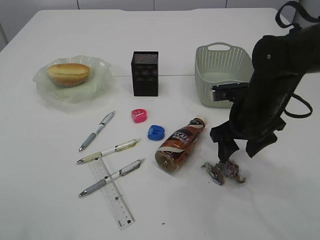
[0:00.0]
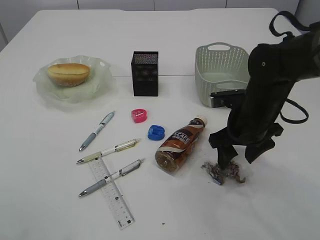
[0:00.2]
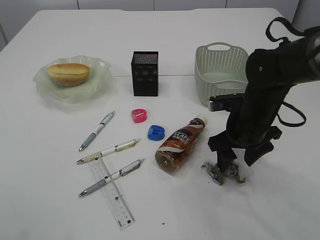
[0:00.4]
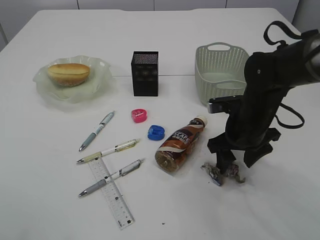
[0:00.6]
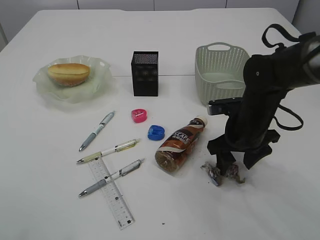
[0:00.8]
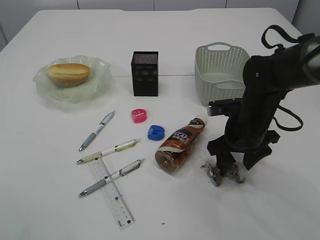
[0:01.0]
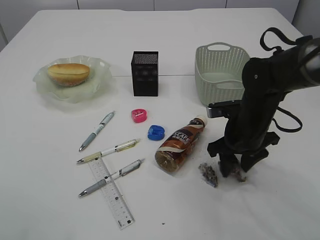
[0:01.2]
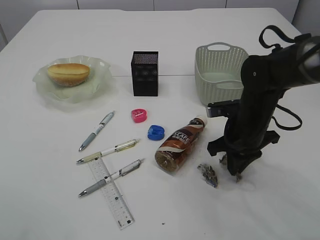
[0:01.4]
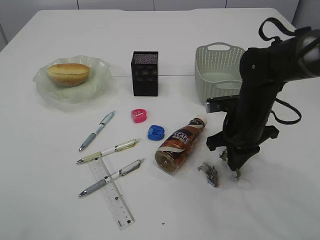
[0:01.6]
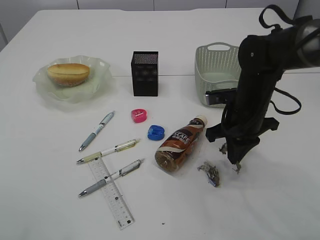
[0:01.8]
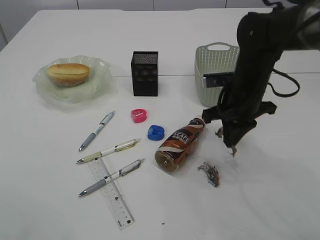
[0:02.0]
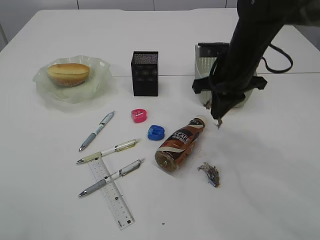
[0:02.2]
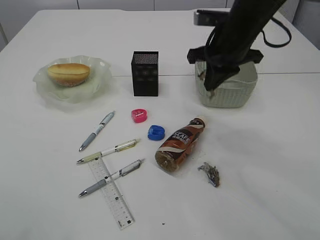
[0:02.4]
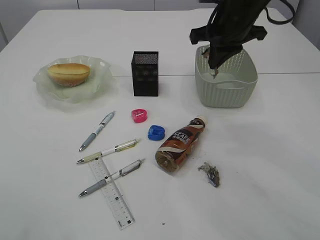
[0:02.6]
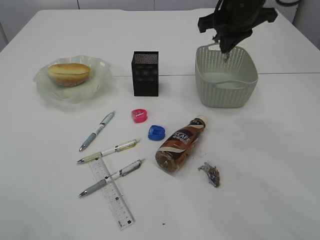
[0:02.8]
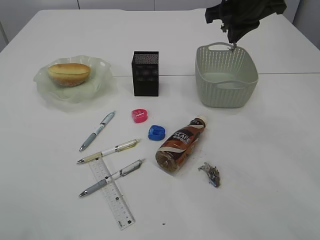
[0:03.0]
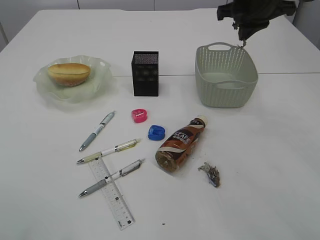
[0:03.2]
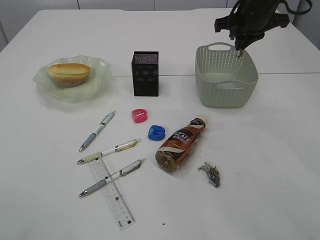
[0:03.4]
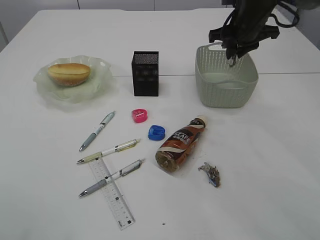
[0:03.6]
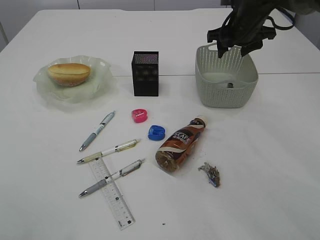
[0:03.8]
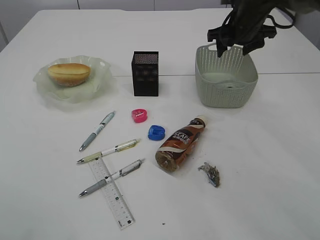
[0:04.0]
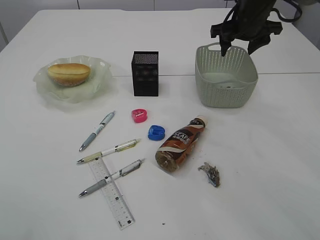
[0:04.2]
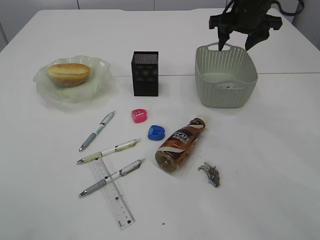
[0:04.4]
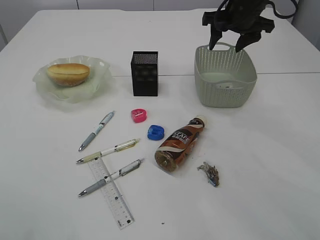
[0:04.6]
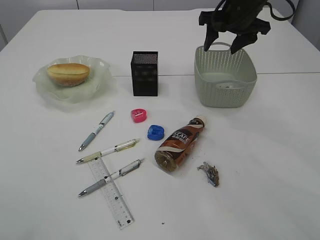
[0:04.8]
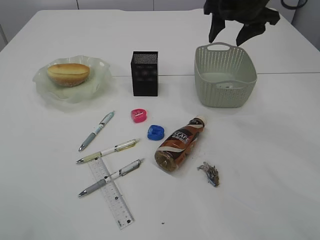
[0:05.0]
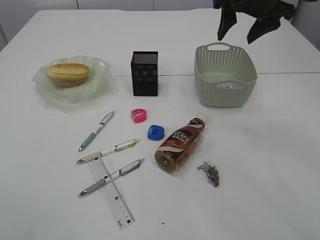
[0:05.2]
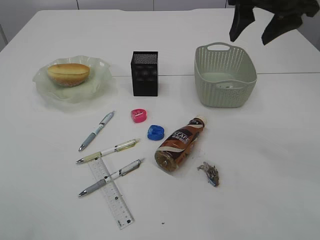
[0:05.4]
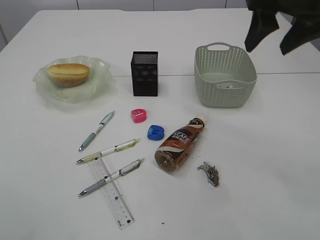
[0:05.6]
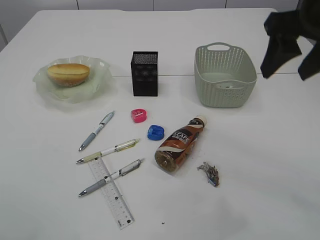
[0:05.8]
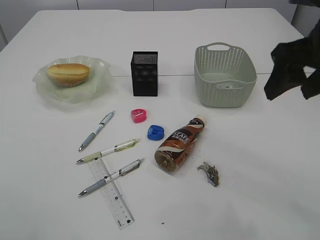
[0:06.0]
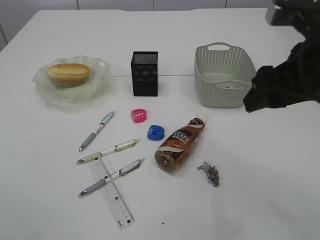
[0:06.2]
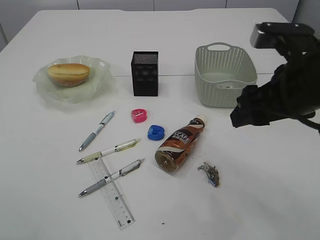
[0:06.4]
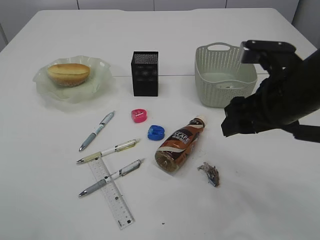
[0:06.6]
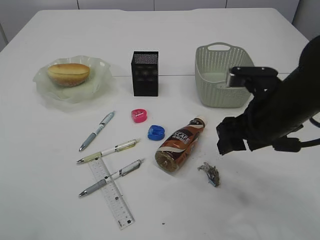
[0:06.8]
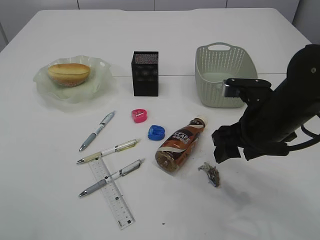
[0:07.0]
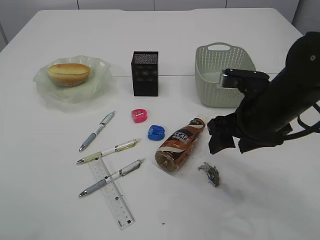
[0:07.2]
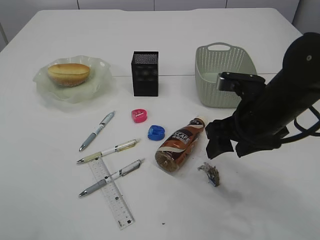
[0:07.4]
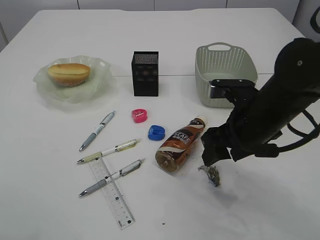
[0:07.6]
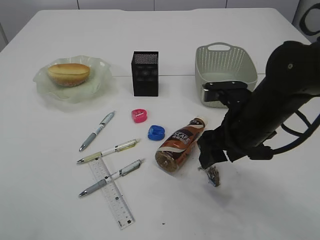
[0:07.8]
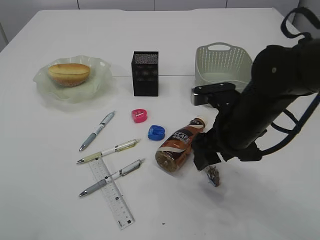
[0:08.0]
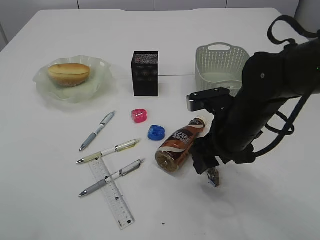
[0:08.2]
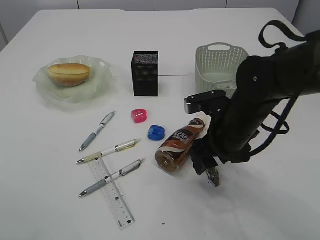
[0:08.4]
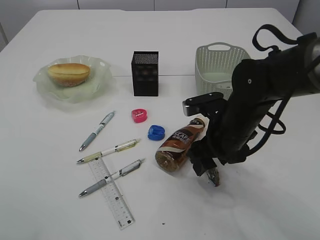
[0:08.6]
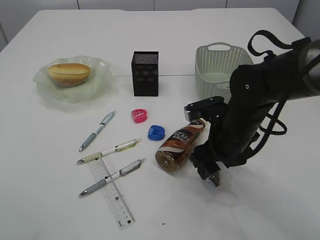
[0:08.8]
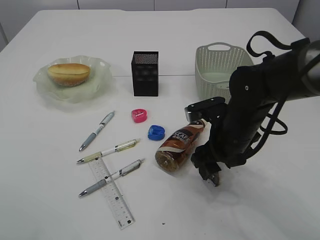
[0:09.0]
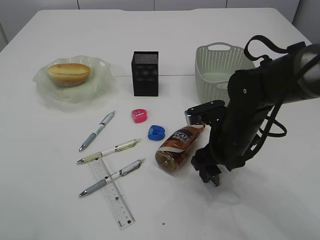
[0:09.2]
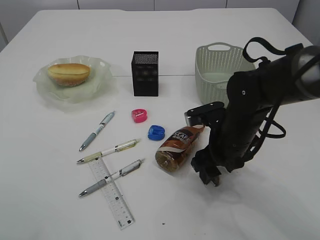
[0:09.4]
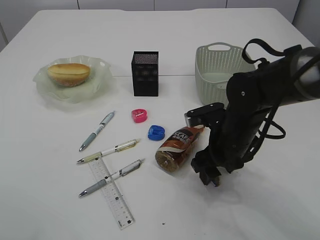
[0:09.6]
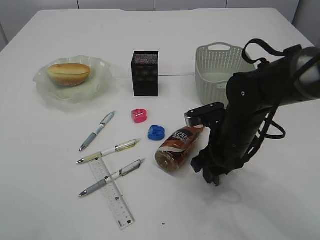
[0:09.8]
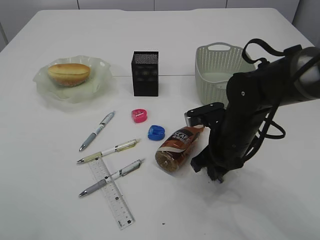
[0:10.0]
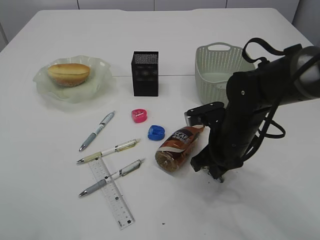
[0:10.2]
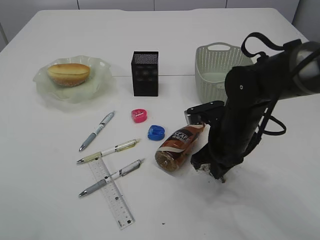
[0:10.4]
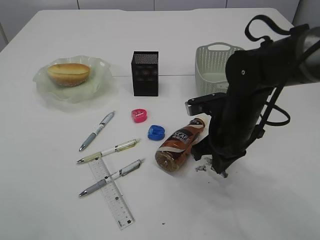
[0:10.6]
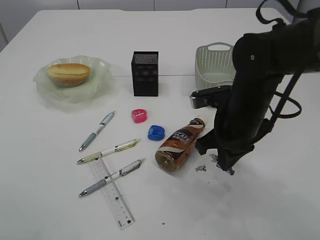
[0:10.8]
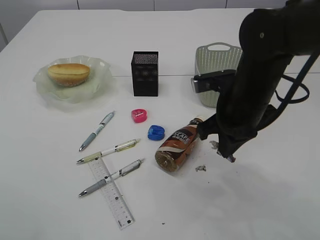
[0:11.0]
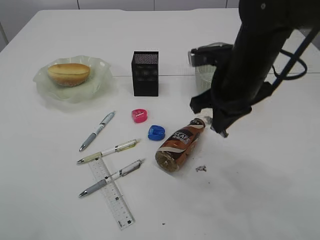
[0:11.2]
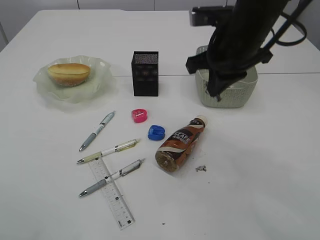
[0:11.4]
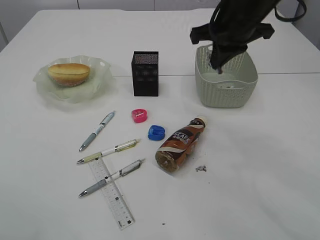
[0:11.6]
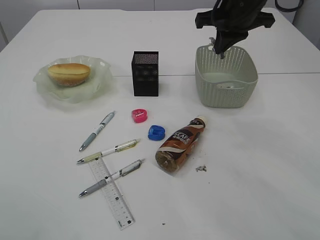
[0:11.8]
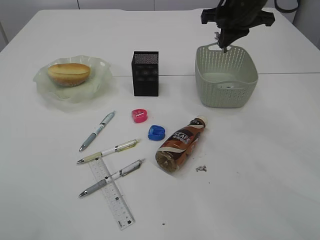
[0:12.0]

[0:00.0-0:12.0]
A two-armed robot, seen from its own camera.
Step, 0:00.0 to 0:02.2: Pick up the waste paper.
Step, 0:02.4 to 0:05.2: Place the waste paper in the basket.
Step, 0:05.4 to 0:10.8: Pick up the waste paper.
0:00.0 to 0:01.6: The right gripper closes.
0:01.6 to 0:03.0: The right gripper travels upward and forward by roughly 20 cm.
0:03.0 to 0:04.4: The right gripper opens up.
0:04.4 to 0:06.0: The right gripper travels backward by approximately 25 cm.
0:06.0 to 0:07.6: The right gripper goes some 15 cm downward and to the left.
0:07.6 to 0:09.0: The right gripper travels downward by roughly 5 cm.
0:09.0 to 0:10.4: The right gripper closes.
0:10.4 to 0:12.0: The right gripper goes approximately 25 cm upward and forward.

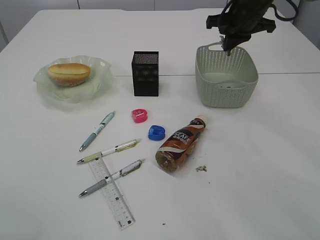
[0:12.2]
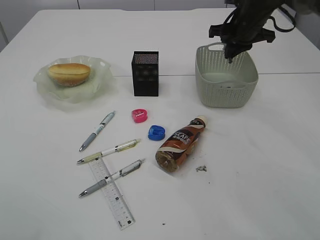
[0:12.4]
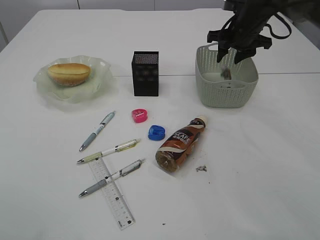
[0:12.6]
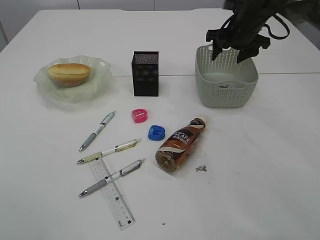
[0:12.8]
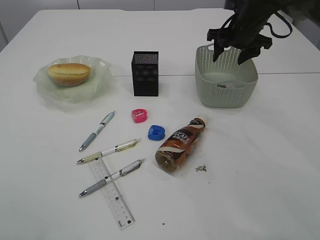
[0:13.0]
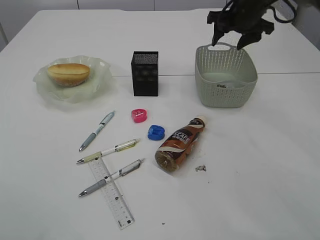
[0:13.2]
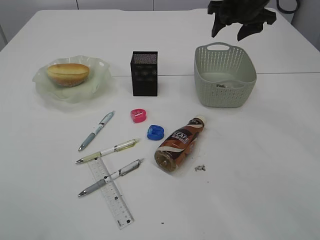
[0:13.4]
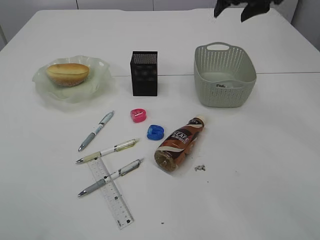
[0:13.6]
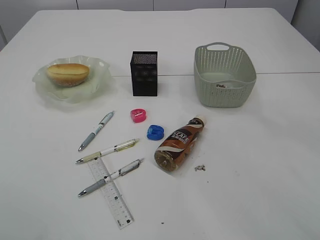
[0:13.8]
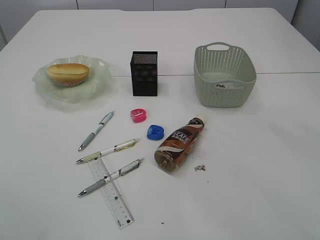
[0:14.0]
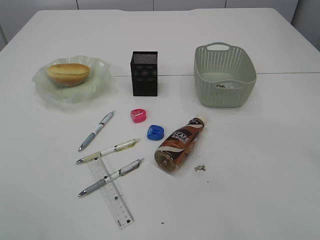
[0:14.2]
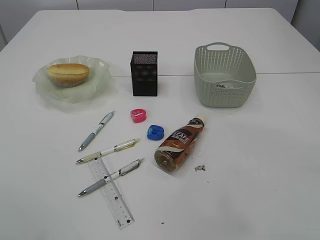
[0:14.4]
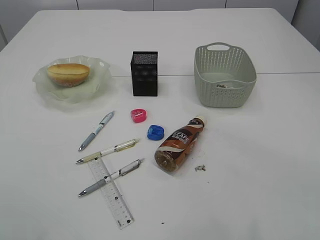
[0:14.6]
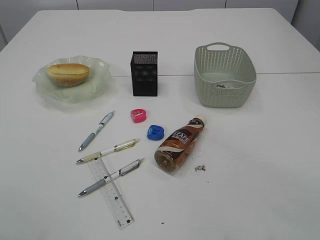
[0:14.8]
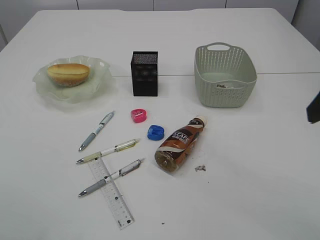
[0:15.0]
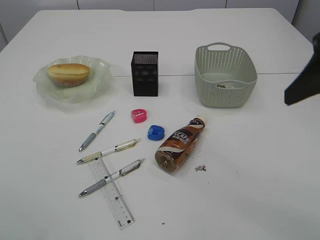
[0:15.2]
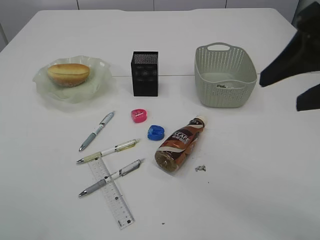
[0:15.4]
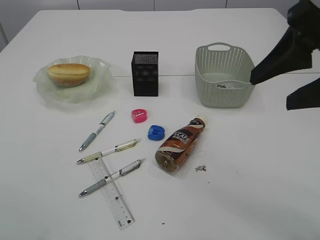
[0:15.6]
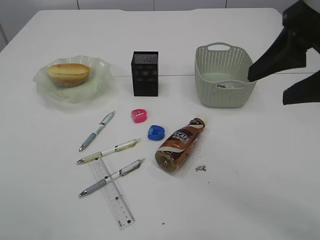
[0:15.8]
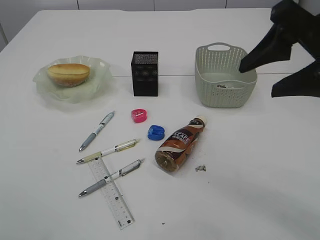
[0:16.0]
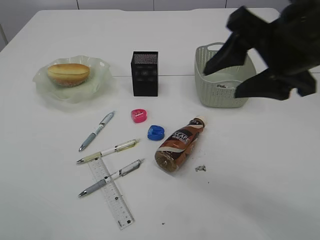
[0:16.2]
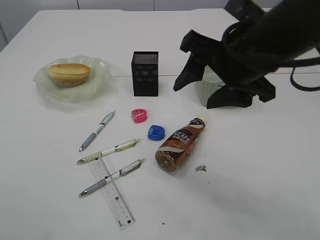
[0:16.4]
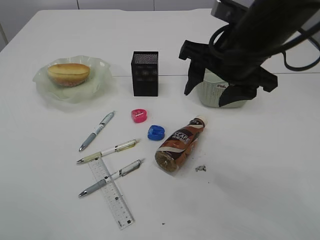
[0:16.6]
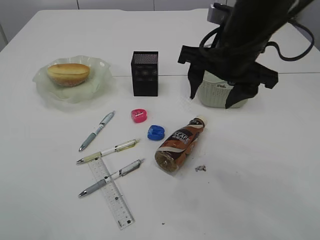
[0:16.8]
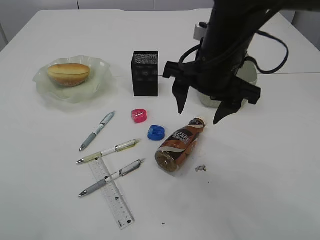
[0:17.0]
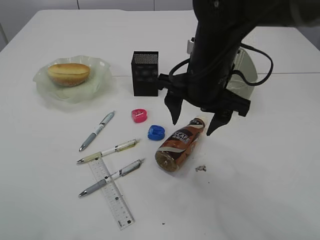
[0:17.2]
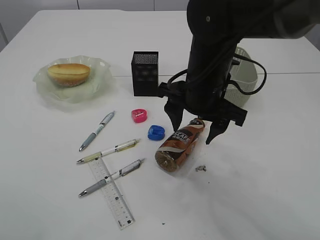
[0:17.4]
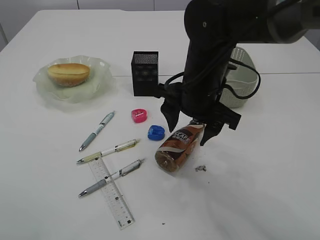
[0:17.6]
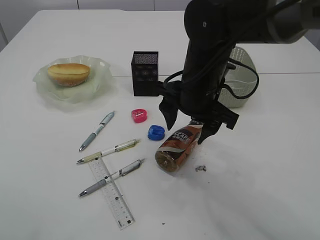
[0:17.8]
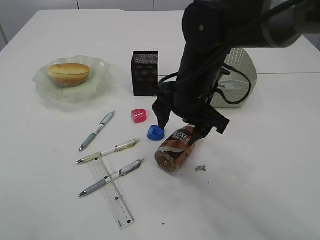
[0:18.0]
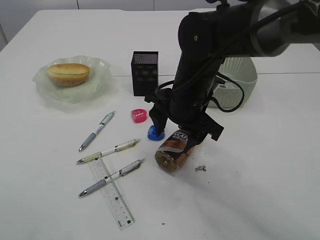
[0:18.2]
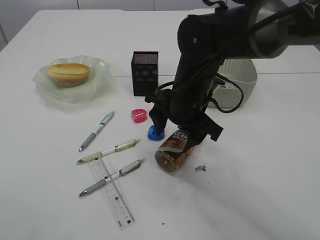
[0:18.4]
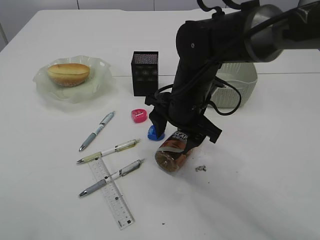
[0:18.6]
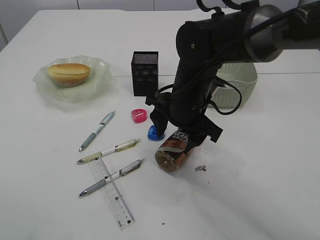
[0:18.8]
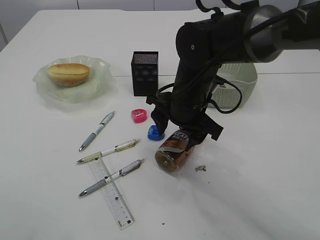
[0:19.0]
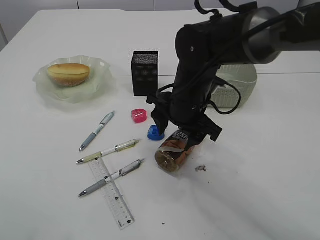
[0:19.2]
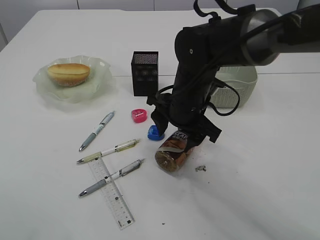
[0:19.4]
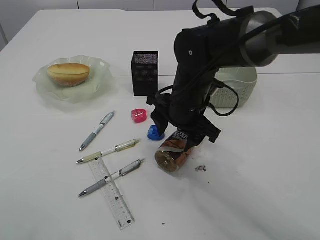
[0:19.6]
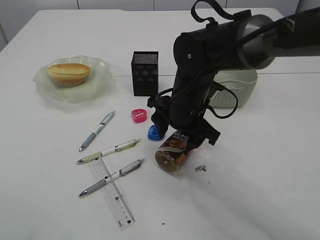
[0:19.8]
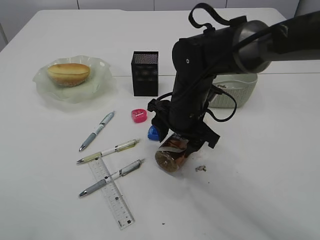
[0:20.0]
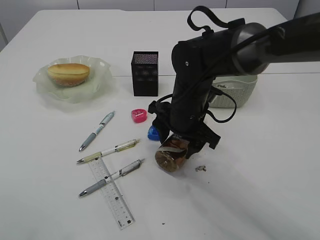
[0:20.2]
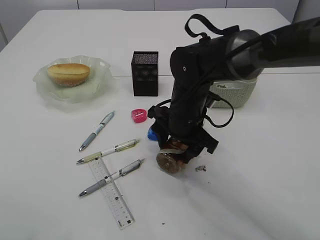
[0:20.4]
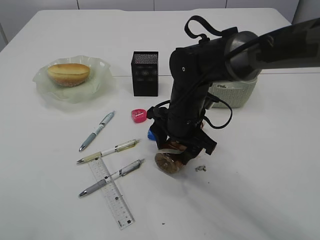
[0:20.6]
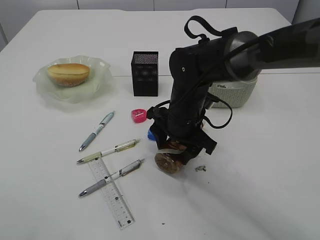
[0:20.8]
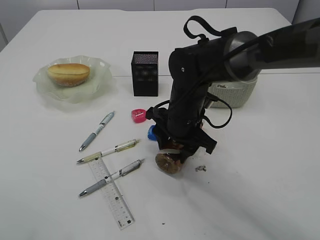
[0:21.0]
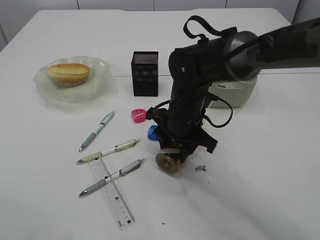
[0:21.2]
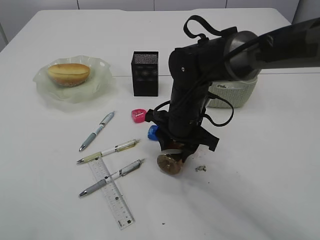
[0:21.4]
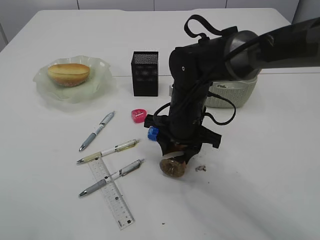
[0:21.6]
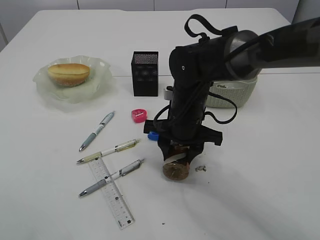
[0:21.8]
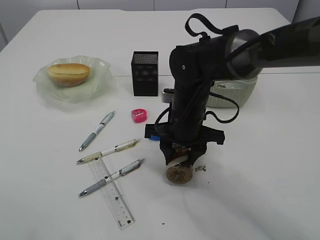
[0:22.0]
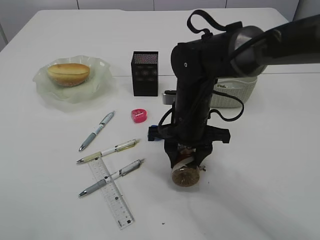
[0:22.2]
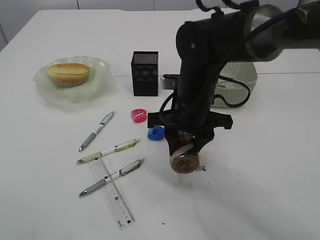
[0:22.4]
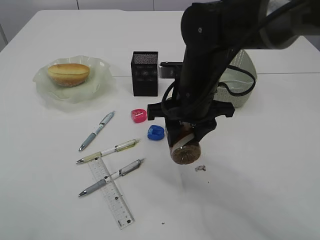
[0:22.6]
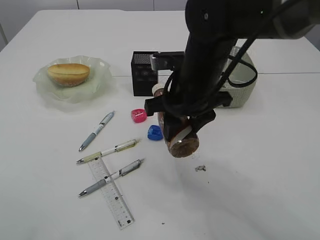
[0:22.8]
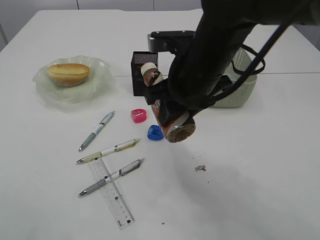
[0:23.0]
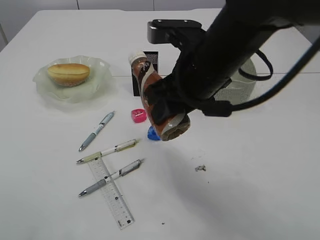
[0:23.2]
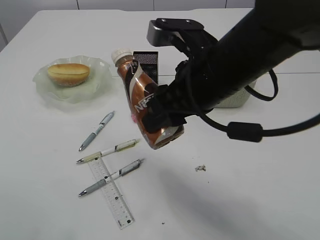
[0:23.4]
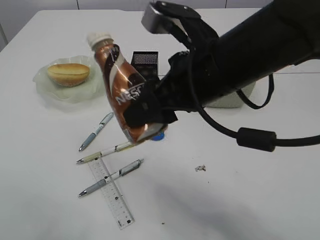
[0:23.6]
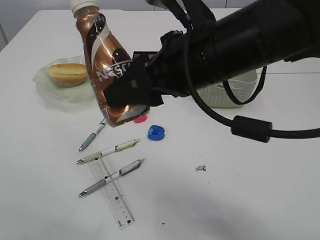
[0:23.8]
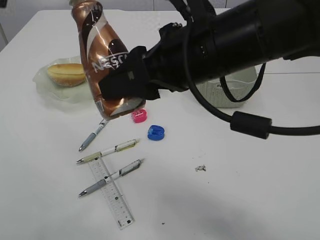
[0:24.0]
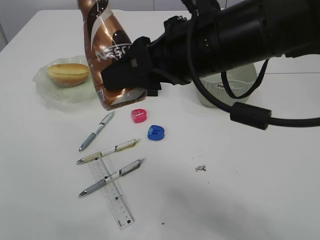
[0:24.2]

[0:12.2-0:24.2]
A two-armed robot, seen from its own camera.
Step, 0:13.2 to 0:22.8: Pick up the bottle with the right arm.
0:12.2 to 0:13.8: The right gripper shifts about 10 cm upward, and opens up.
0:13.8 to 0:15.2: The right gripper is displaced backward by some 25 cm.
0:15.2 to 0:16.6: The right gripper is displaced forward, to the left and downward by about 15 cm.
0:16.6 to 0:18.2: The right gripper shifts about 10 cm downward and to the left.
0:18.2 to 0:21.2: The grippers make only small movements.
0:21.2 to 0:22.6: The right gripper shifts roughly 5 cm upward.
0:22.6 to 0:24.2: The right gripper is displaced upward and backward by roughly 15 cm, while the left gripper ends up approximately 5 cm from where it was.
